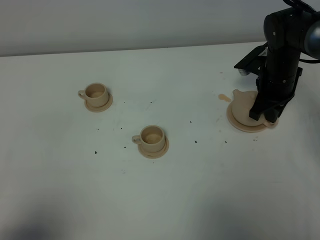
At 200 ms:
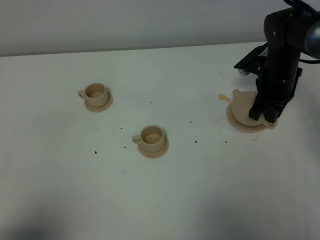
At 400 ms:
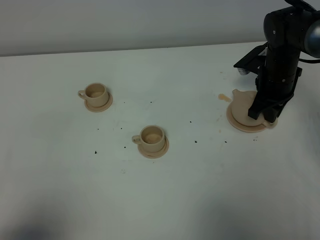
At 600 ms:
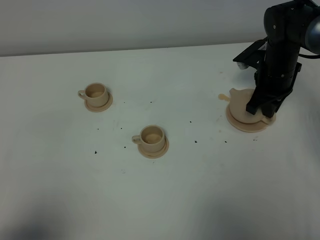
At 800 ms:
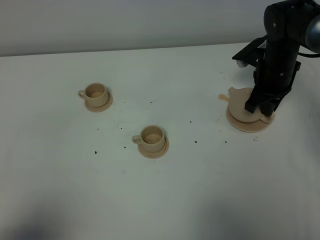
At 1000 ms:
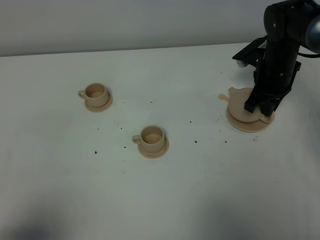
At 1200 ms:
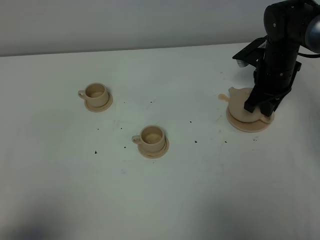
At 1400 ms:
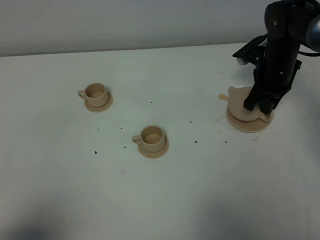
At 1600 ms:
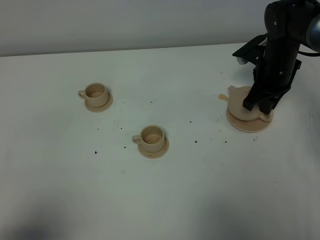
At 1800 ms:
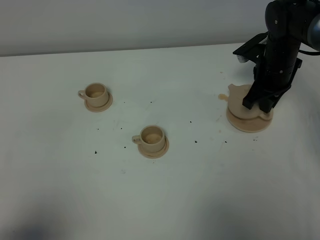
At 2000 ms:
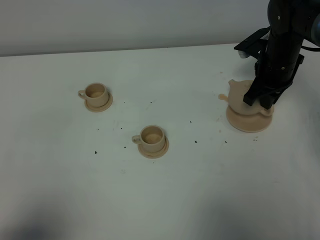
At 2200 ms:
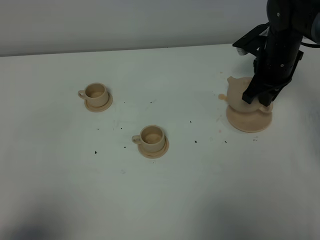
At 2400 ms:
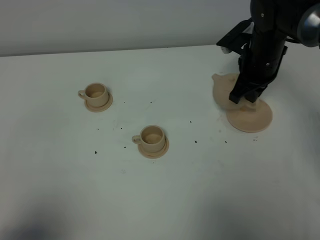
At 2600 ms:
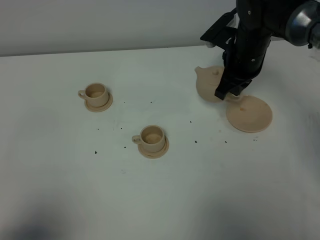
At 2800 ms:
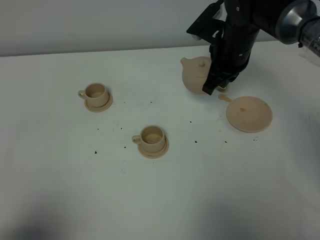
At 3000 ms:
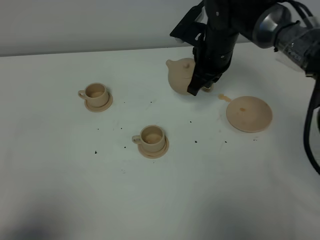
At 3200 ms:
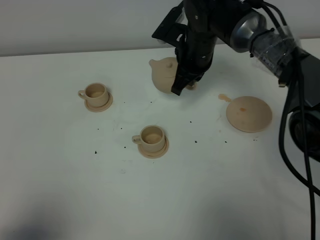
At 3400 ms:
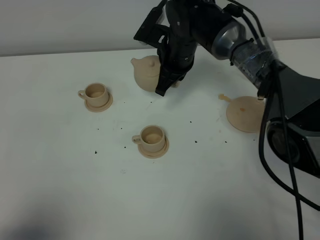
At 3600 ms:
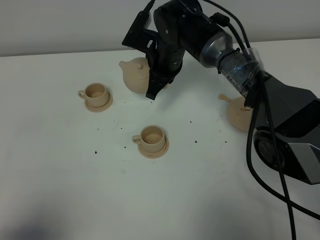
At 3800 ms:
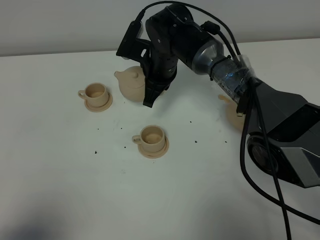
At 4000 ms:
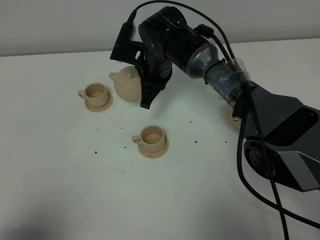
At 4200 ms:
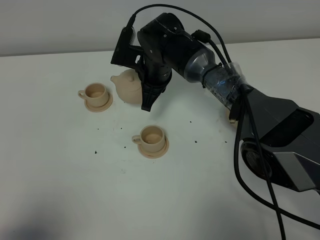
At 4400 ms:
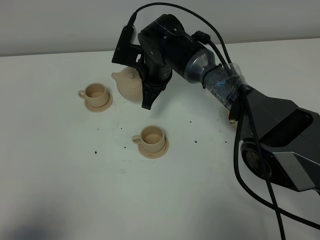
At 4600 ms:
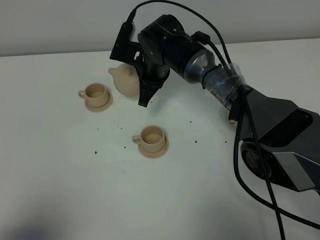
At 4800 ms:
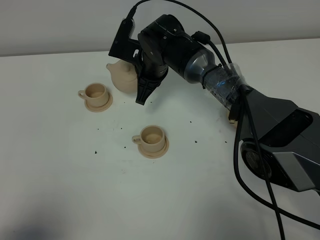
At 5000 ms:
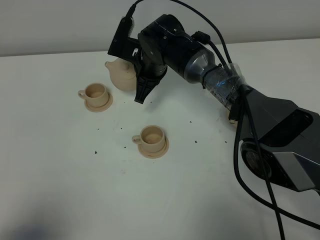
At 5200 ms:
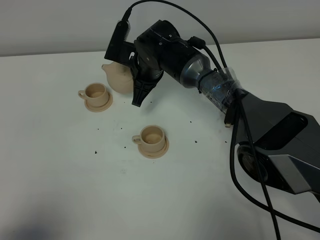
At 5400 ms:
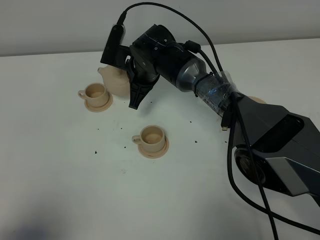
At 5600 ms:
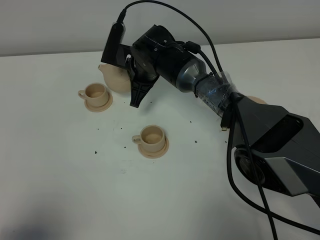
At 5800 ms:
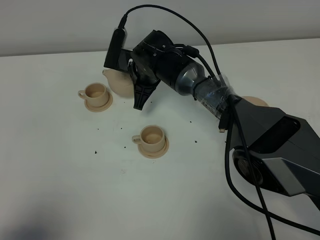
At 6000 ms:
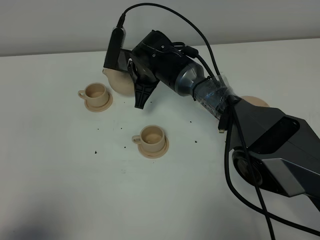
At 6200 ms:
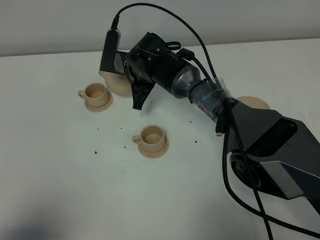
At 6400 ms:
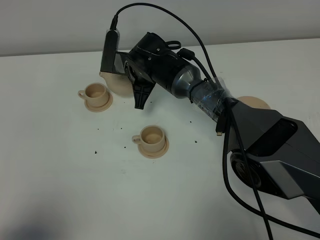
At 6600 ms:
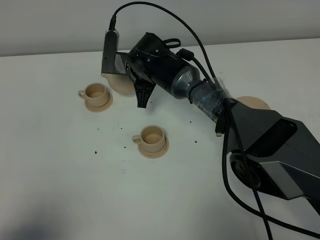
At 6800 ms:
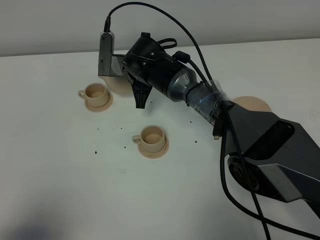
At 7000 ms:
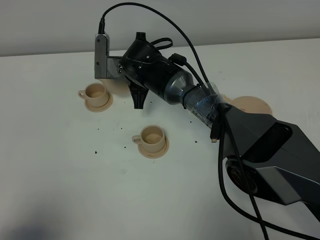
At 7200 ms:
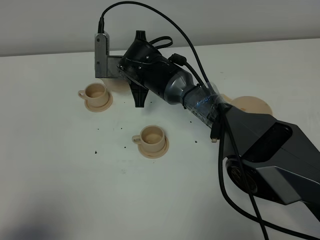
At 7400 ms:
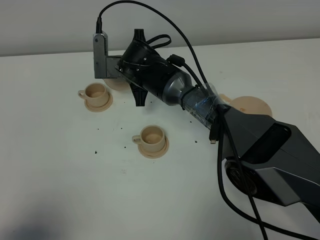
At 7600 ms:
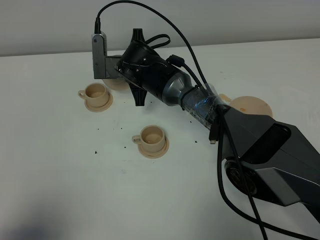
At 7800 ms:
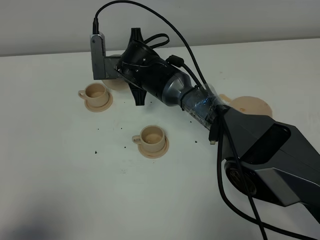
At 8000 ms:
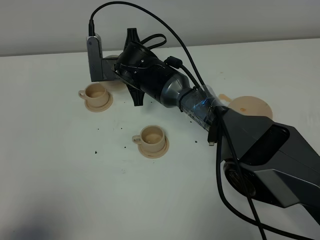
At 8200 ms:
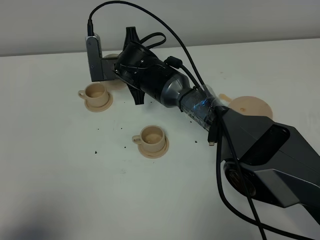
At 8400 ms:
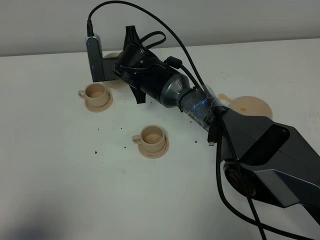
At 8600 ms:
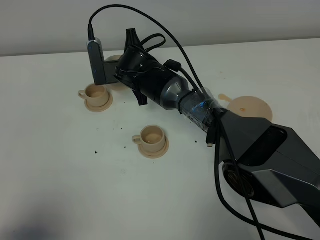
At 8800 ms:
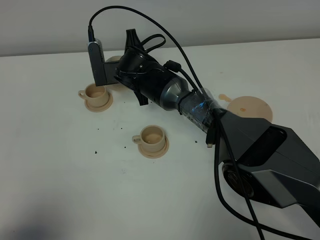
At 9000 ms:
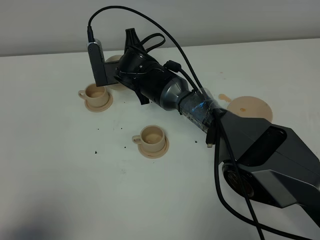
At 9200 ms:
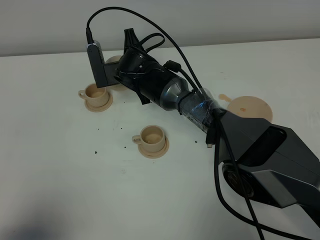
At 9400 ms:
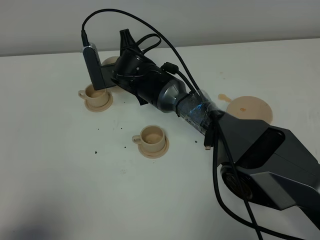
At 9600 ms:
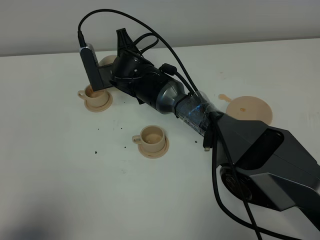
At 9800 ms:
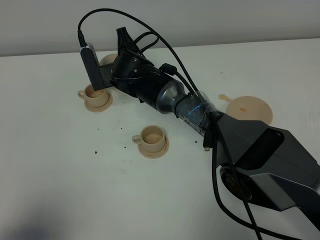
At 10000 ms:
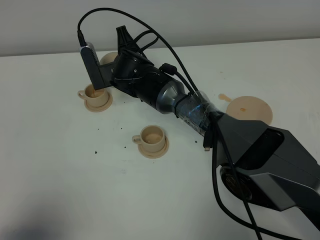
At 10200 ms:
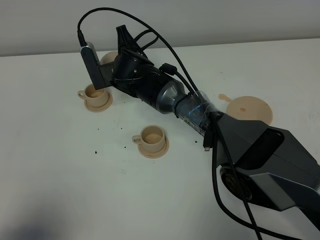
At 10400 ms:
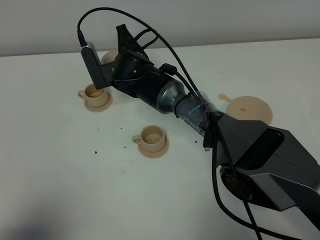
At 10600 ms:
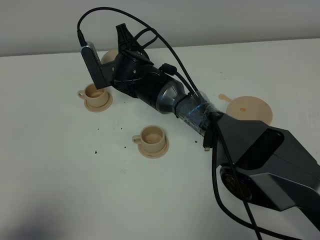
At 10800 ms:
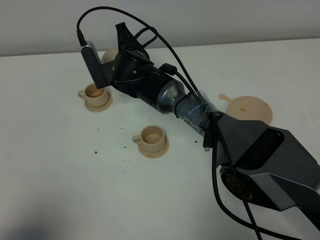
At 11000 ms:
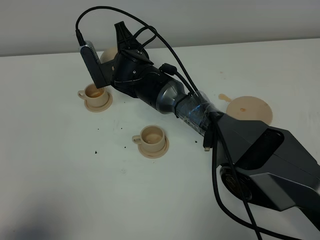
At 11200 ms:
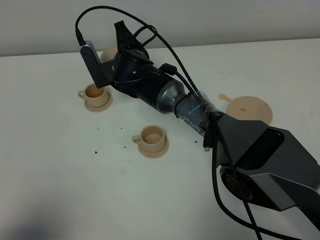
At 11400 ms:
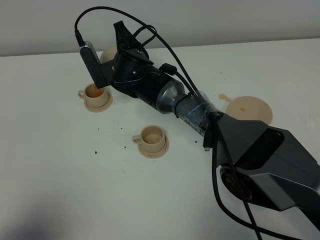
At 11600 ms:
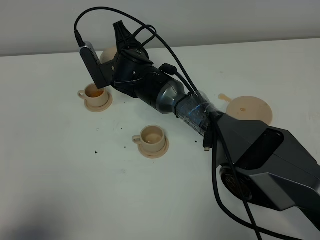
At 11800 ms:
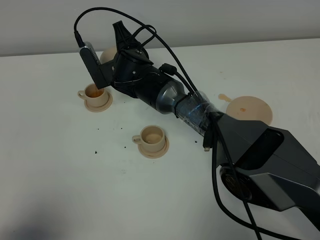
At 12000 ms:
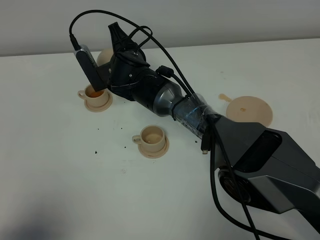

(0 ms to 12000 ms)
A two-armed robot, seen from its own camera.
Task of the whole recording: grasp the brown teapot and pour the tea into the two brown teacups one by one, put the brown teapot back in its original place.
0 ms - 1600 ms: There are only small adjustments of the grippers.
1600 ms - 3000 ms: The right gripper heads to the left, covering about 10 cm.
3000 ms - 4400 ms: The right gripper shifts some 10 cm to the left.
4400 ms - 6000 ms: The grippers make only small movements.
6000 ms - 7600 ms: The grippers stay close to where they were, moving slightly.
7600 ms - 9000 ms: The grippers stay close to where they were, moving slightly.
9000 ms - 12000 ms: The grippers move only a little.

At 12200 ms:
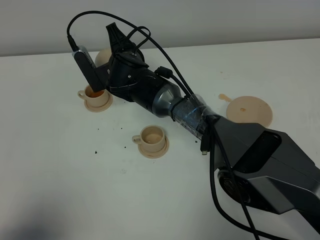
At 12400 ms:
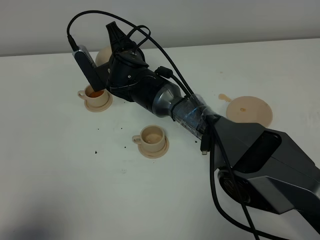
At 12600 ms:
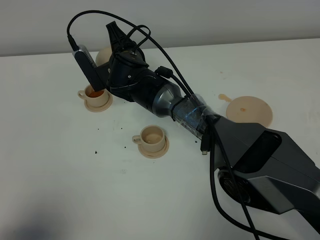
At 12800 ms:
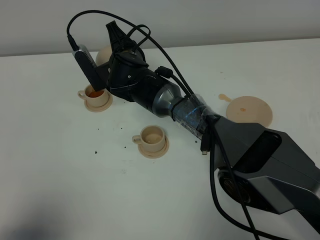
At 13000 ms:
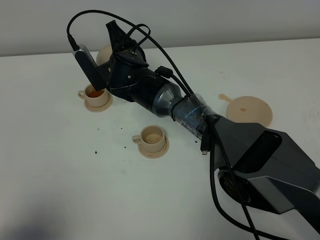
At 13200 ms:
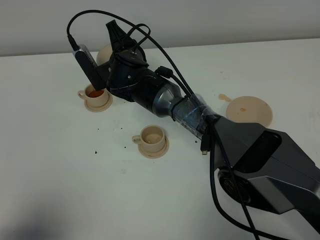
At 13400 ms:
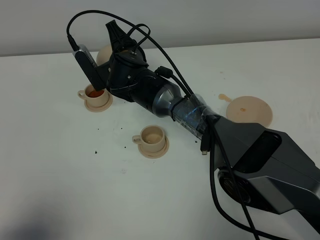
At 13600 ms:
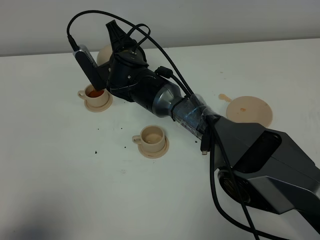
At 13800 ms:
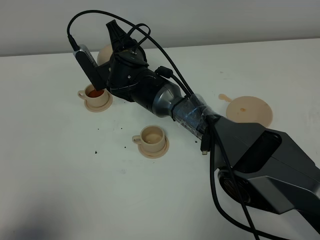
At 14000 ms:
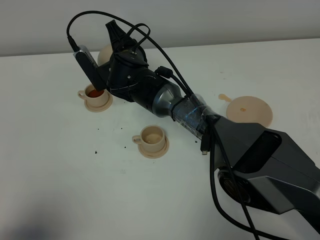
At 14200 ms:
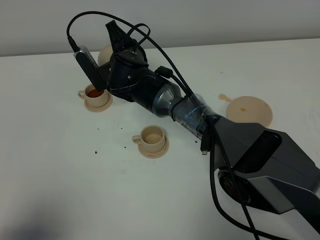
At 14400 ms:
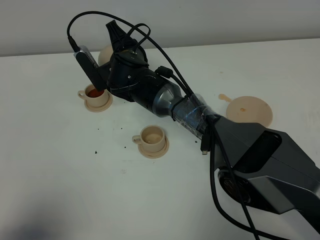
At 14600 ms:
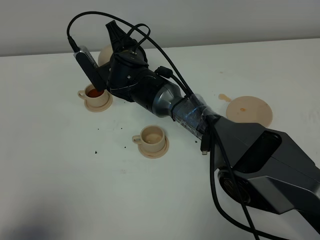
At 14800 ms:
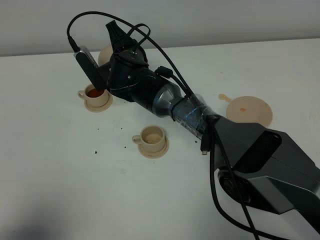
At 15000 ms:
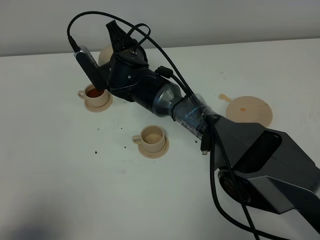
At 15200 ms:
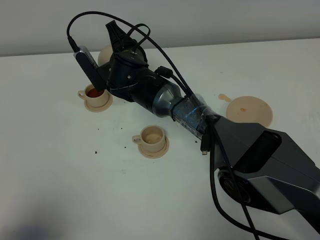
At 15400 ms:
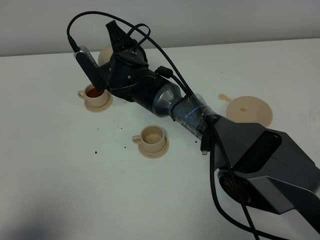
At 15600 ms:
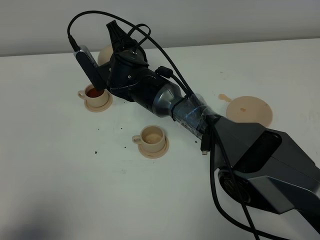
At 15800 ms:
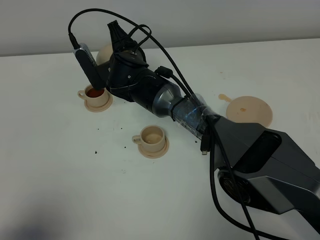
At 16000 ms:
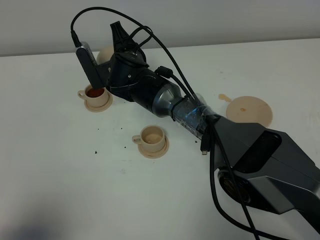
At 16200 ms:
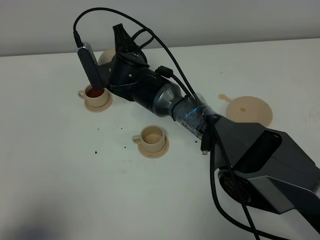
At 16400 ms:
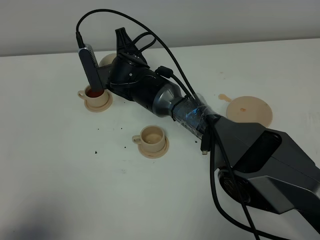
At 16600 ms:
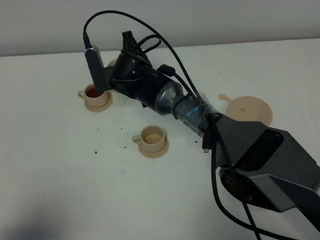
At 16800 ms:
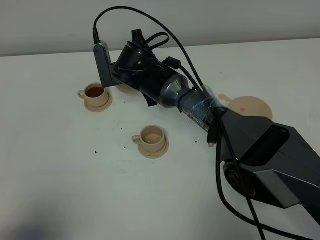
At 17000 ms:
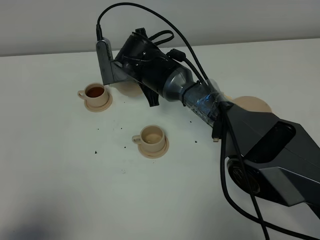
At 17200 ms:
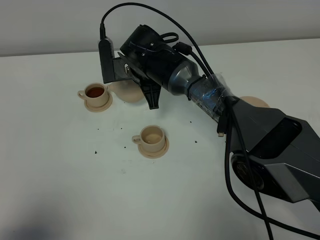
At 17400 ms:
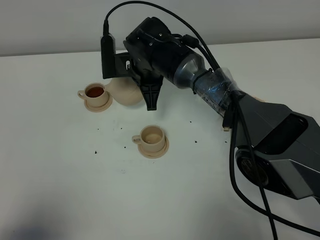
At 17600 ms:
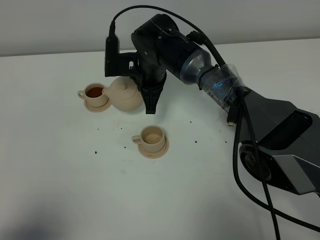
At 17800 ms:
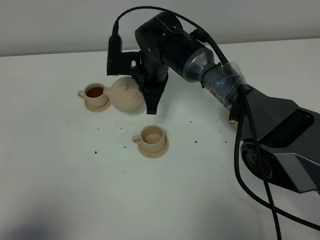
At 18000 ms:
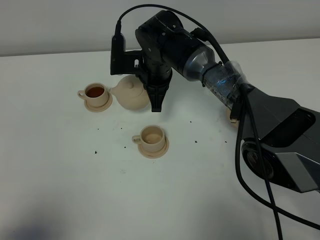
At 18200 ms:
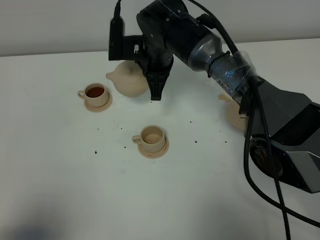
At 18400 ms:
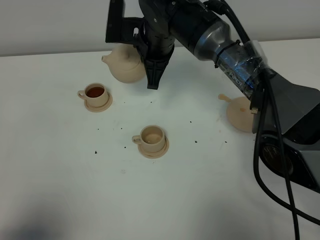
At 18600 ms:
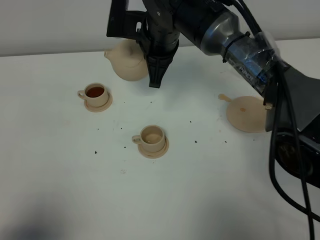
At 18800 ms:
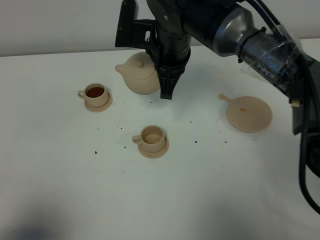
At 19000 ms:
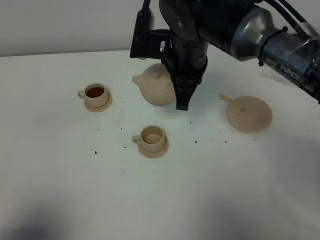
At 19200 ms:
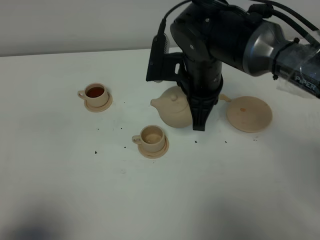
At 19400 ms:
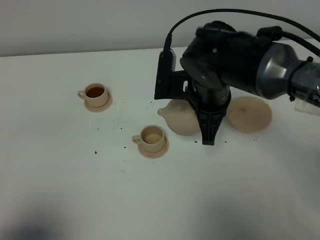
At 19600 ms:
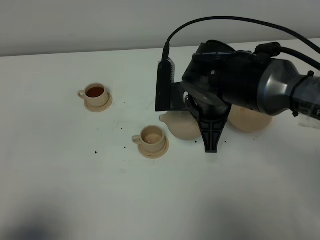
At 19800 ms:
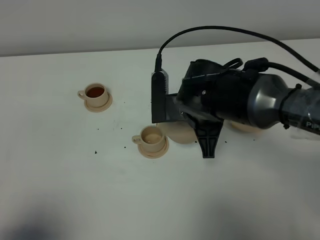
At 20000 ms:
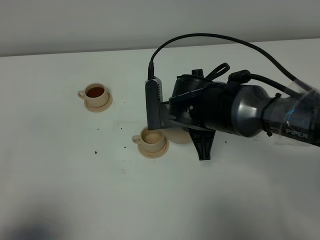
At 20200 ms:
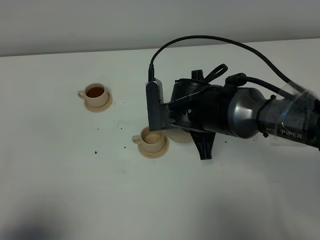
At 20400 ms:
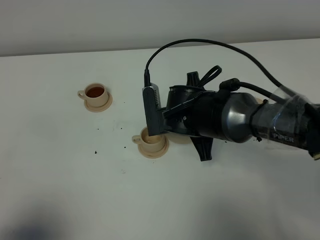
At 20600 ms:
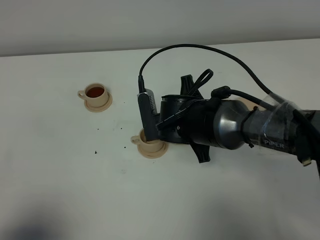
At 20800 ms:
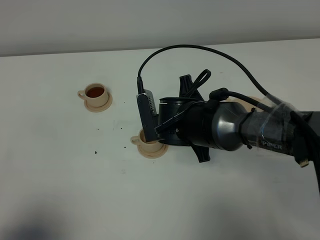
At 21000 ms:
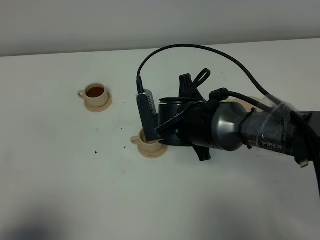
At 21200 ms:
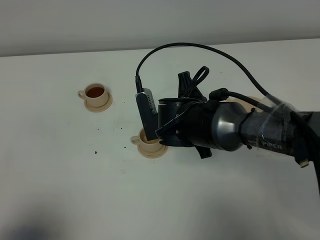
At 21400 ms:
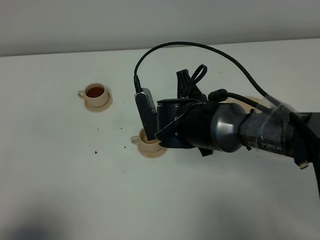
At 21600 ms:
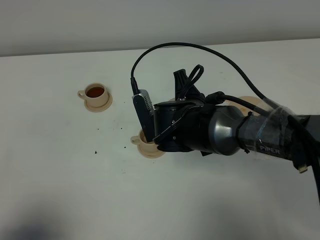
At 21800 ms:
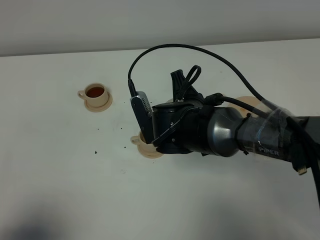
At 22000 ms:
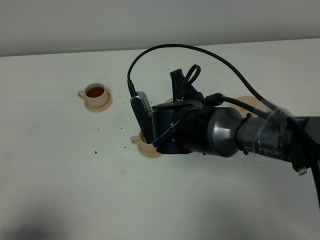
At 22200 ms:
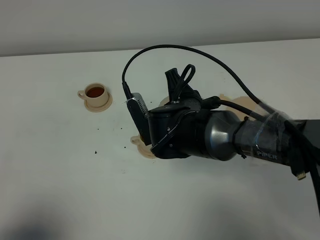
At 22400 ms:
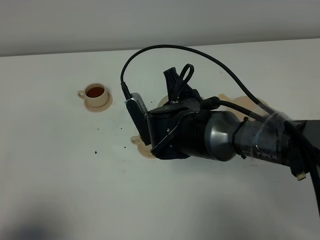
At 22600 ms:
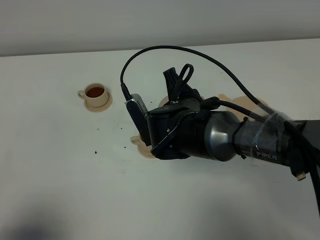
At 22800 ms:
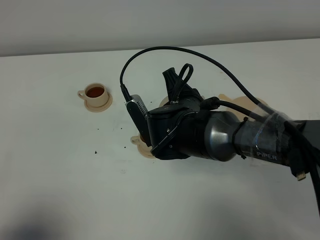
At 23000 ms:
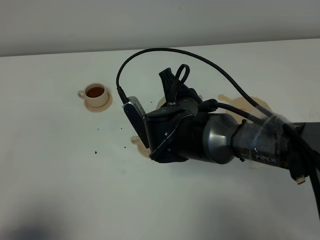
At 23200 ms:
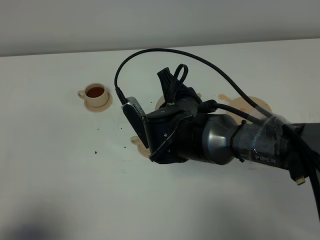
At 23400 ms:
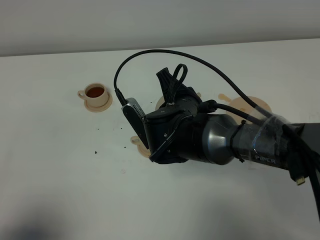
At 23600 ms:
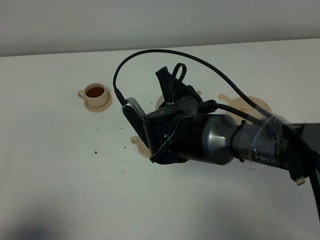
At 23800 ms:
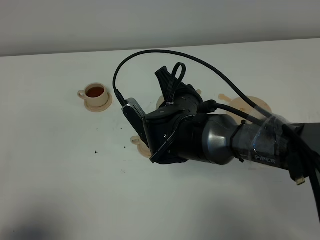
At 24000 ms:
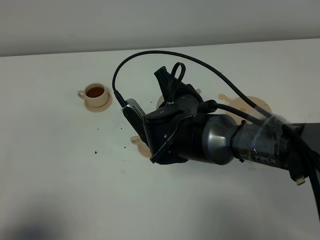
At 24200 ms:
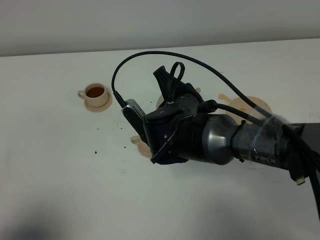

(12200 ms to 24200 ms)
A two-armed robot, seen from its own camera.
Task of the whole recording: grasp the brown teapot and pour the tea into the two brown teacups one by one, put the brown teapot back in its original place.
12200 ms - 15200 ms: Neither gripper changes place.
15200 ms - 16600 ms: The grippers stay close to where they were, moving slightly.
16600 ms - 18200 ms: The right gripper travels upward and to the right by roughly 10 cm.
18200 ms - 19800 ms: The right gripper moves backward and to the right, roughly 15 cm.
19800 ms - 21200 ms: The grippers stay close to where they were, moving slightly.
21200 ms - 22600 ms: There are only small adjustments of the grippers.
22600 ms - 24200 ms: There are only small adjustments of the grippers.
